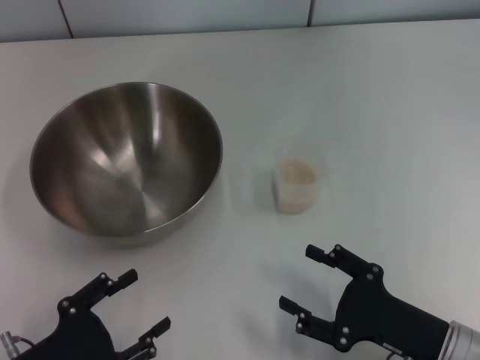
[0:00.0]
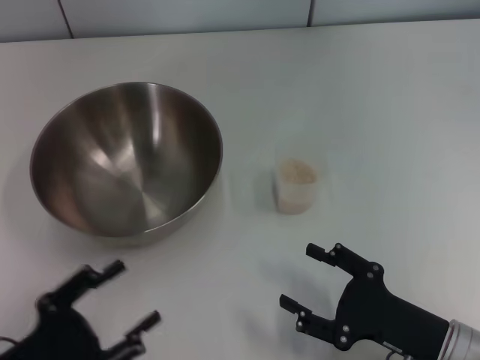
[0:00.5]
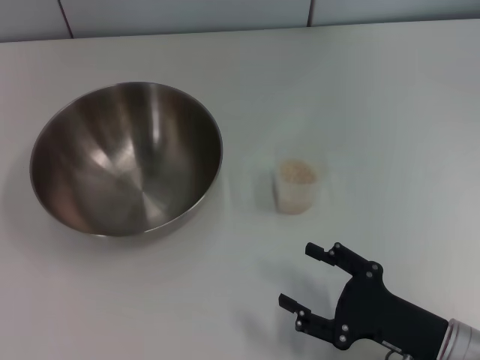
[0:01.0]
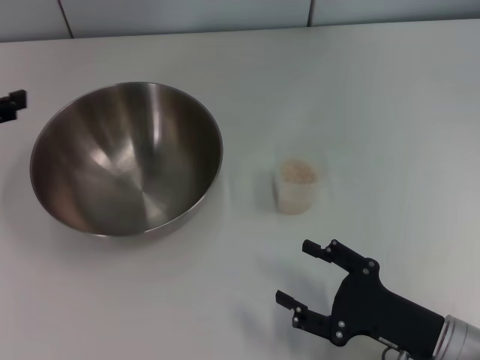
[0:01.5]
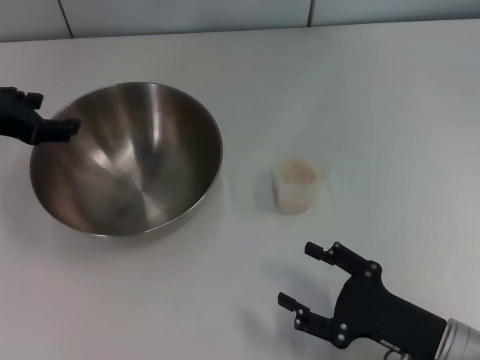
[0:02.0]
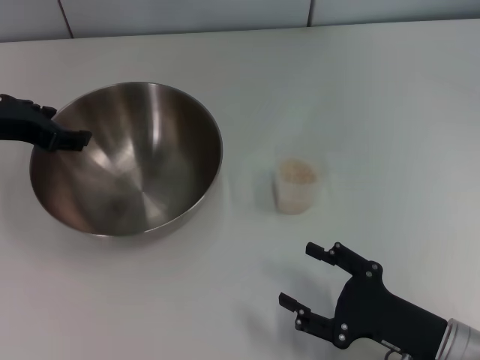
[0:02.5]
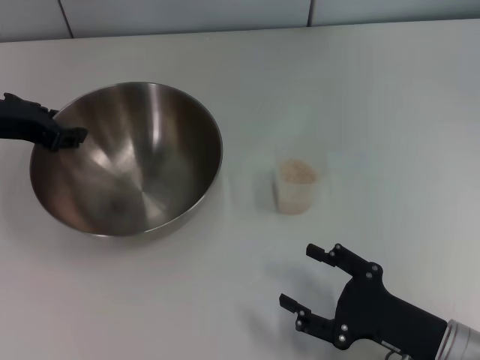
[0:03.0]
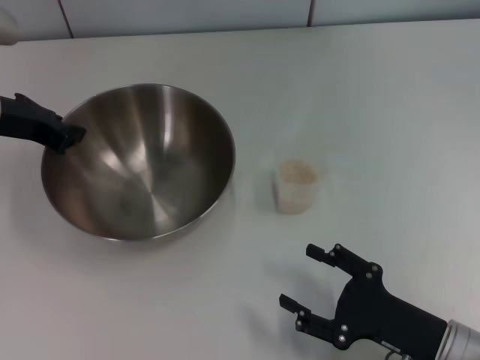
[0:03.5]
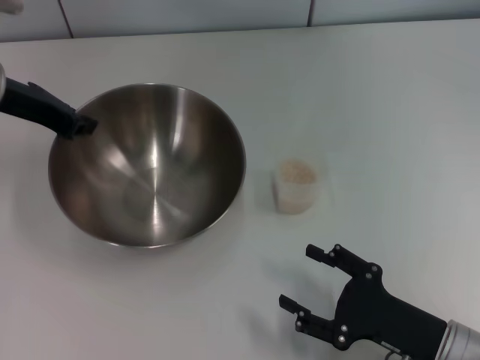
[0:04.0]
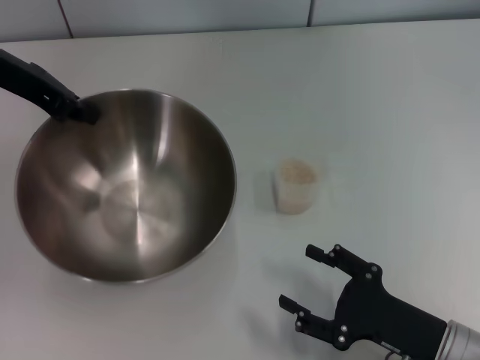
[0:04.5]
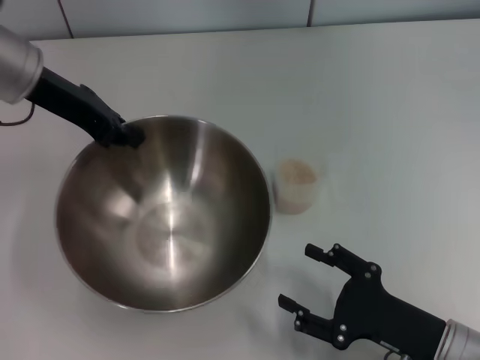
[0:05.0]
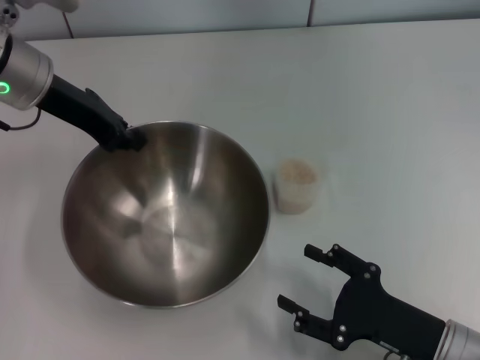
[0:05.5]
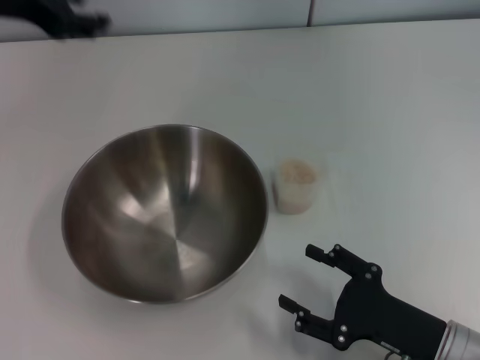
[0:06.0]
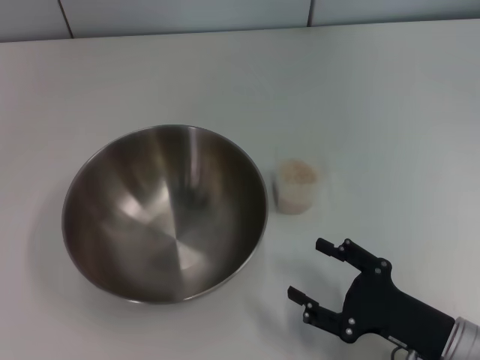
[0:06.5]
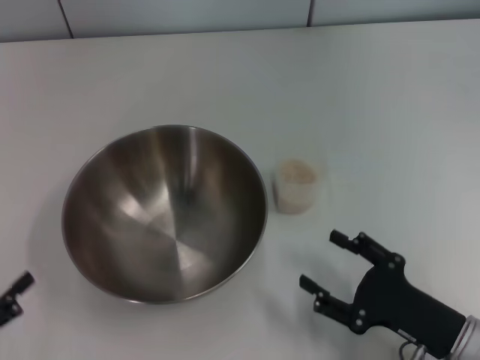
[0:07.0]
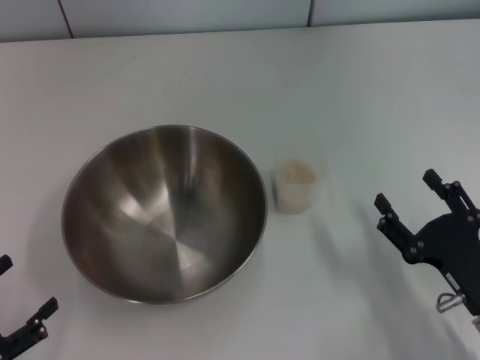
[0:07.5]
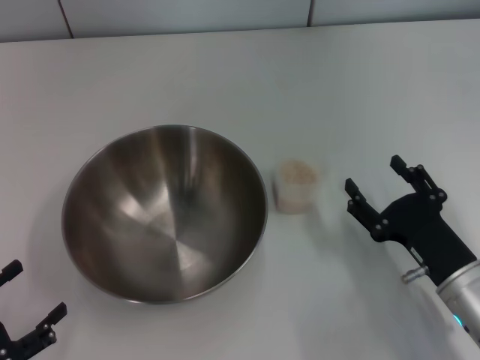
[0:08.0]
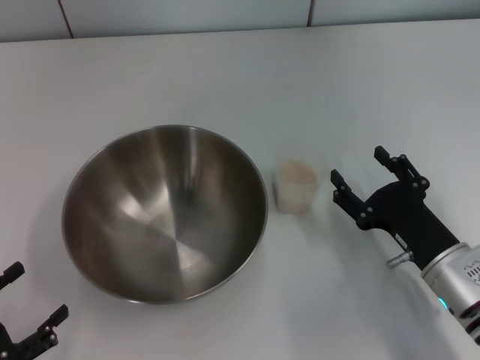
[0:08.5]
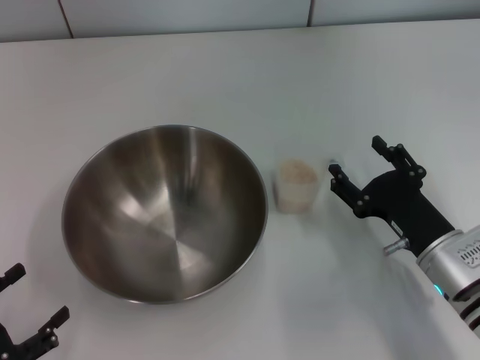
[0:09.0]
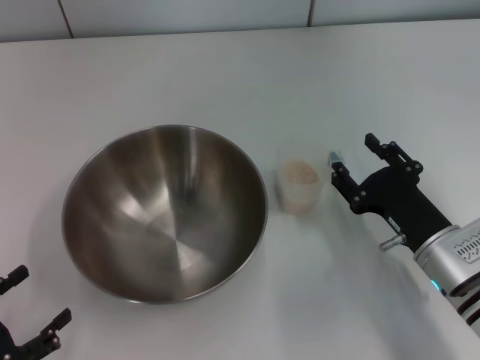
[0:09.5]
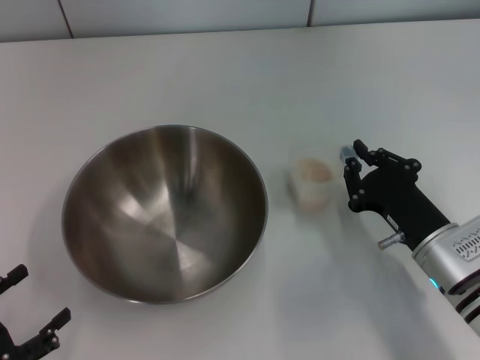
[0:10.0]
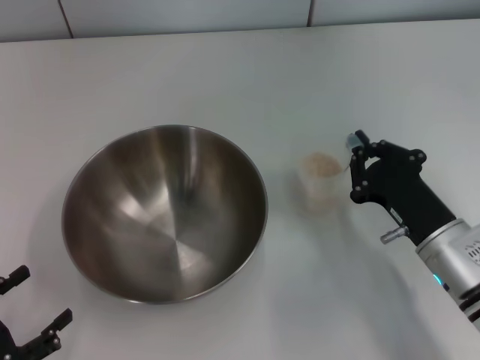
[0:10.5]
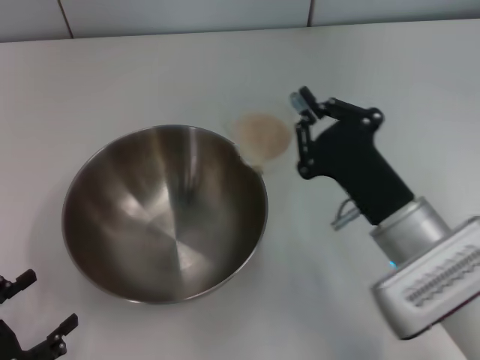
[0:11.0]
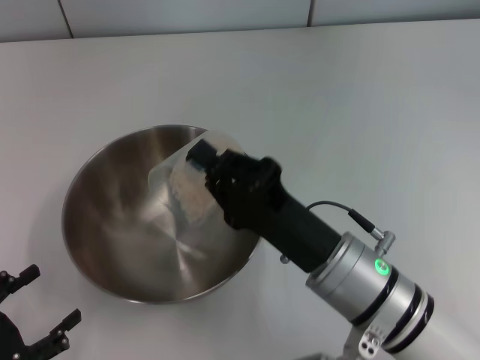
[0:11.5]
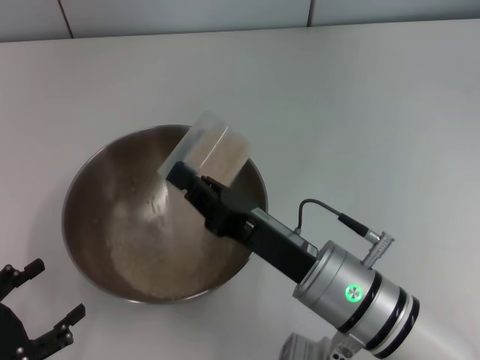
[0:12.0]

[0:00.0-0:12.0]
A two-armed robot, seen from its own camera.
Task of the whole recording: Place the bowl in the middle of the table with one hand and pour the rice from the grain cup into it with the other hand.
Step, 0:00.0 to 0:04.0: Pick up the bowl with the left gripper.
Step, 0:04.5 to 0:05.5: Place the bowl in the center of view with the left gripper.
Step, 0:06.0 to 0:10.5: Pick up the cup with rice in it with the right gripper.
0:00.0 to 0:02.0: The left gripper heads forward and upward, covering some 25 cm.
0:02.0 to 0:04.0: The left gripper is displaced forward by about 5 cm, and closes up.
0:04.0 to 0:06.0: The left gripper is displaced upward by roughly 10 cm.
0:06.0 to 0:08.0: The left gripper travels backward and downward by approximately 40 cm, and opens.
0:08.0 to 0:10.0: The right gripper closes.
0:10.0 to 0:12.0: The right gripper goes roughly 15 cm to the left and upward, and closes up.

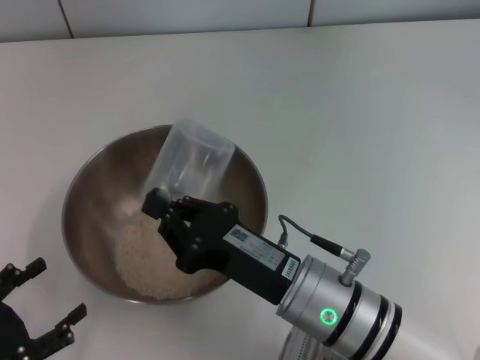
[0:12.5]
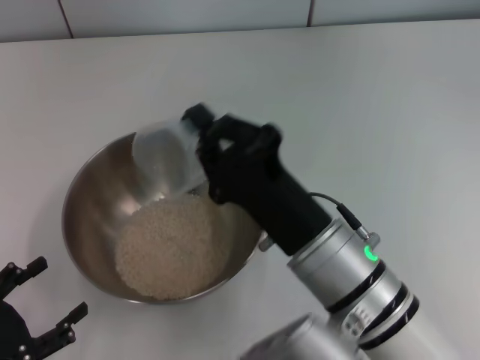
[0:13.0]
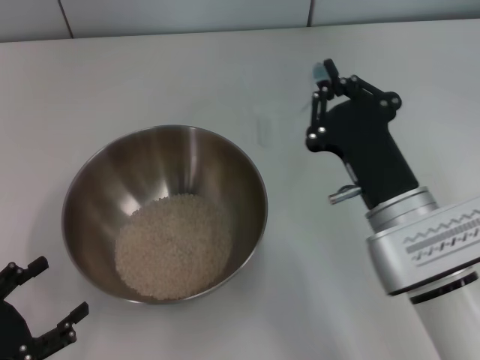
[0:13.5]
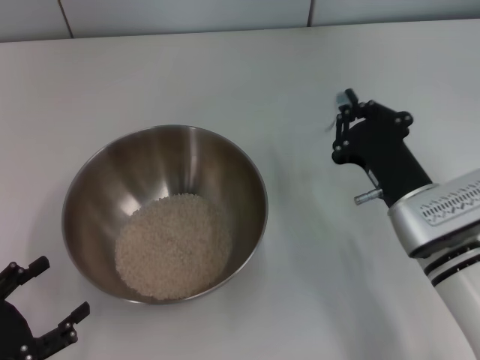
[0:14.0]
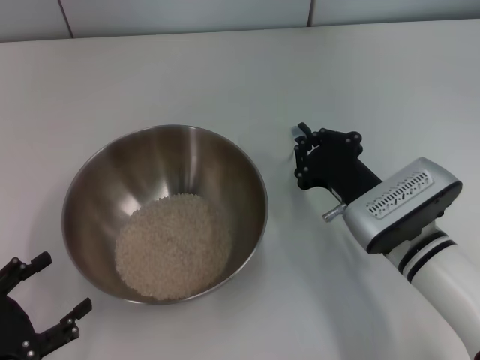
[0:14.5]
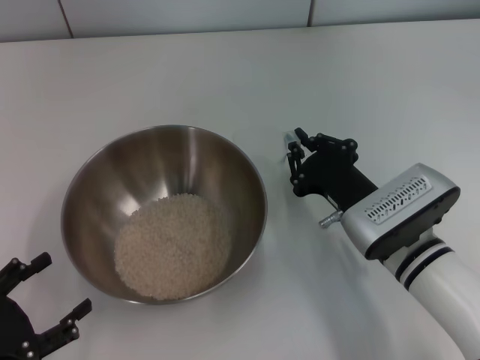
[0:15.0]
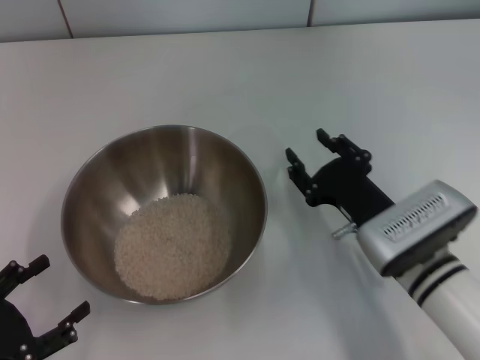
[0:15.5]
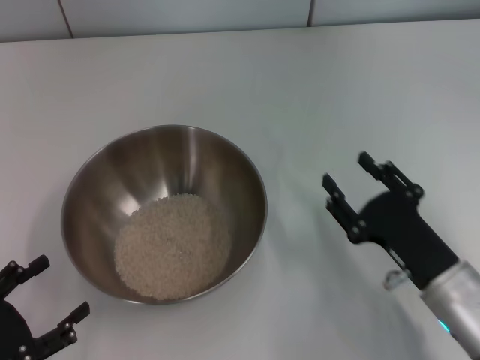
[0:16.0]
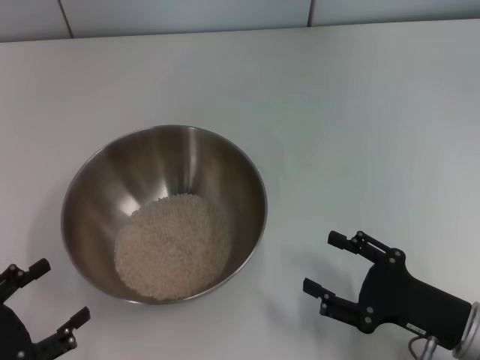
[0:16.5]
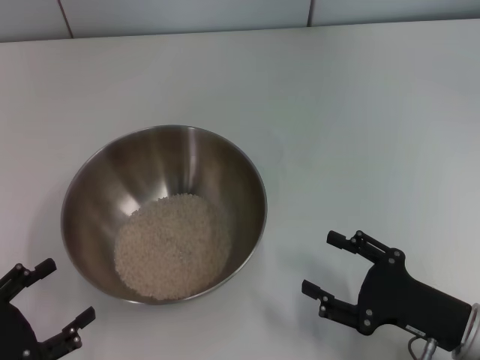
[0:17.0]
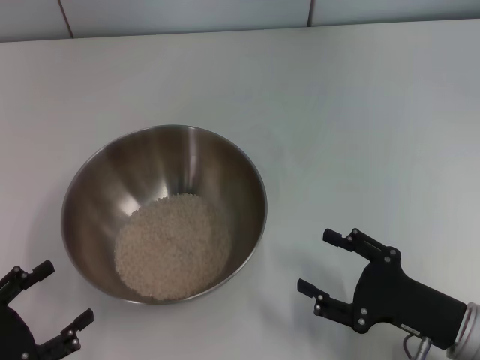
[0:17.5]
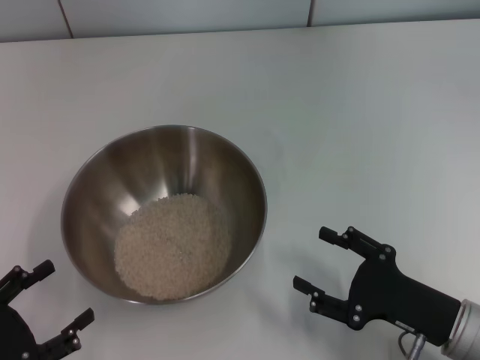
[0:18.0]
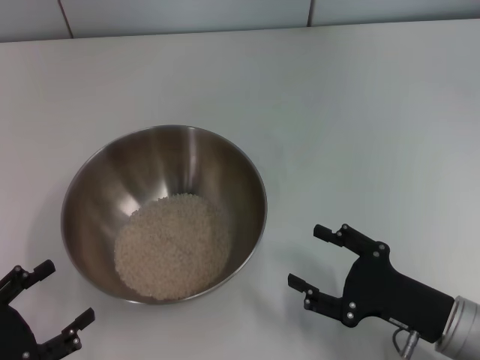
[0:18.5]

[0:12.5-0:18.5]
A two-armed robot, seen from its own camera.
Task of the whole recording: Place the bowl in the middle of the table with one hand and pour the rice from the grain cup into it with the other hand.
Step, 0:14.0 to 0:15.5: Place the cup on the table with the right gripper.
0:12.5 to 0:14.5: The right gripper heads to the right and forward, covering roughly 10 cm.
0:14.5 to 0:16.5: The right gripper shifts some 15 cm backward and to the right, and opens.
0:16.5 to 0:18.5: The grippers make only small movements.

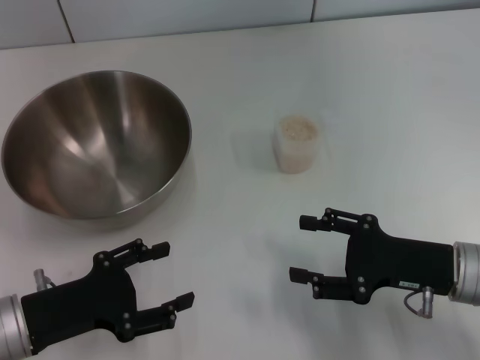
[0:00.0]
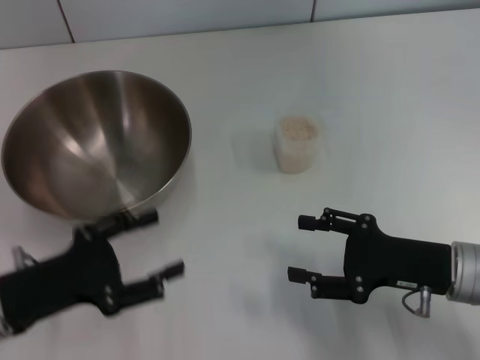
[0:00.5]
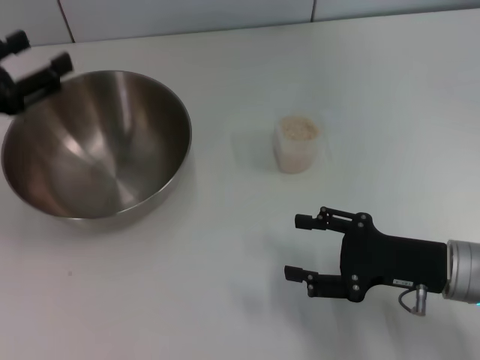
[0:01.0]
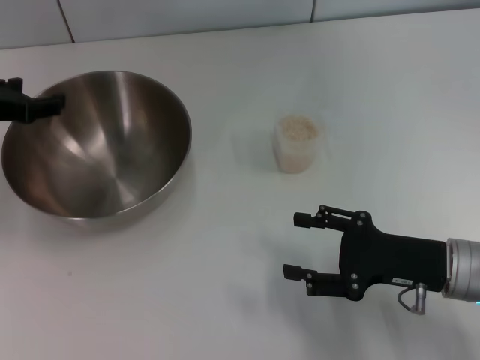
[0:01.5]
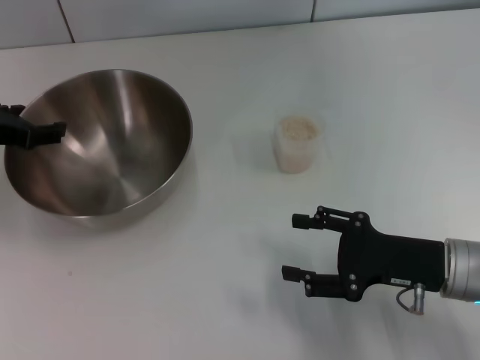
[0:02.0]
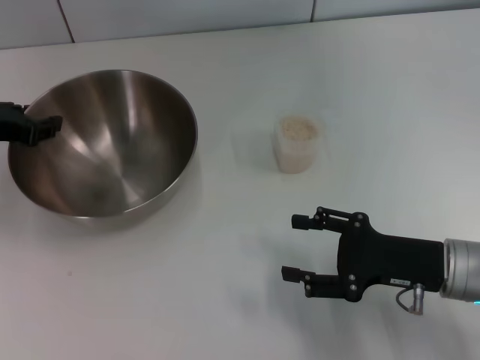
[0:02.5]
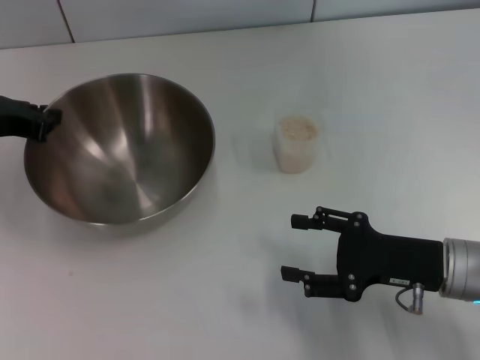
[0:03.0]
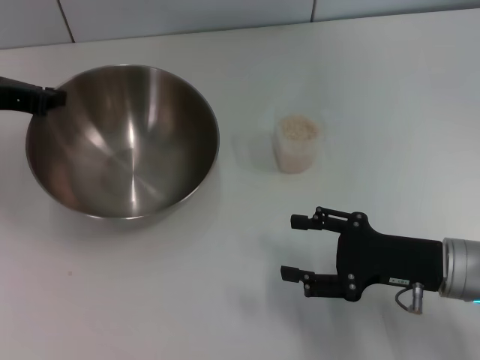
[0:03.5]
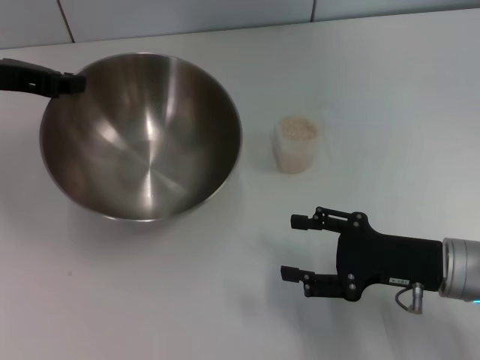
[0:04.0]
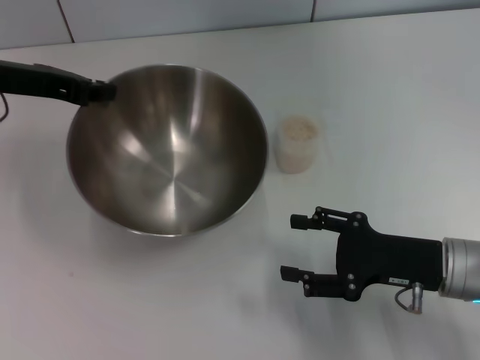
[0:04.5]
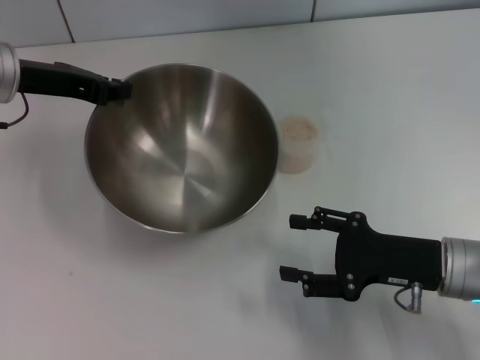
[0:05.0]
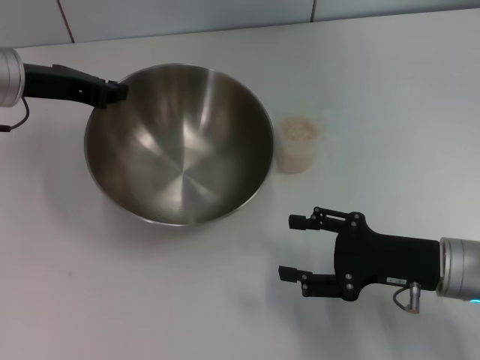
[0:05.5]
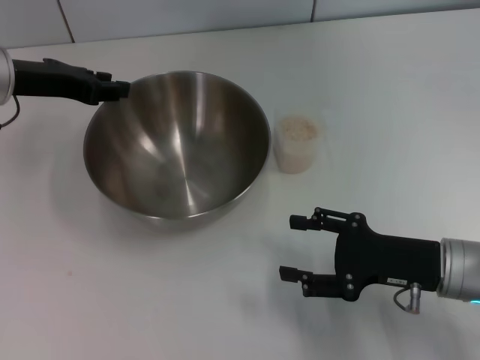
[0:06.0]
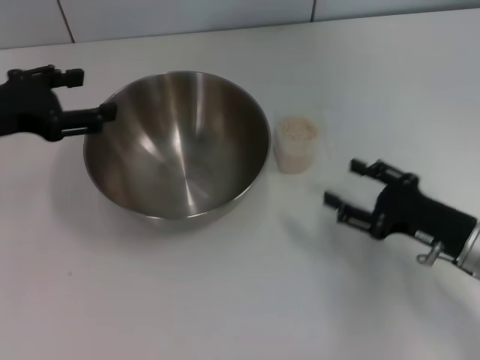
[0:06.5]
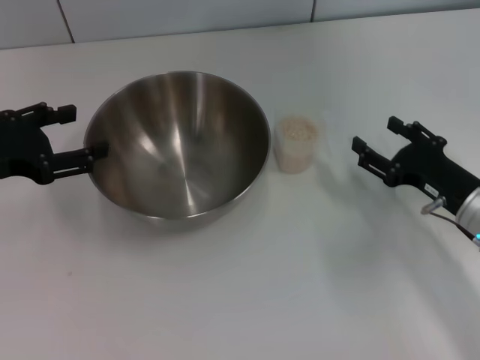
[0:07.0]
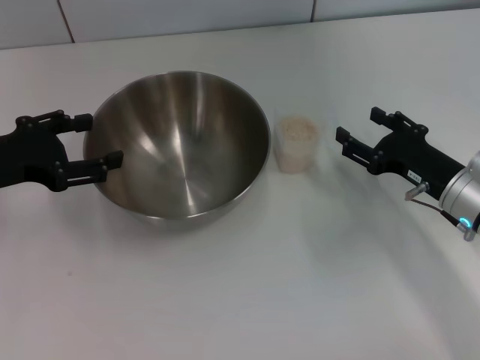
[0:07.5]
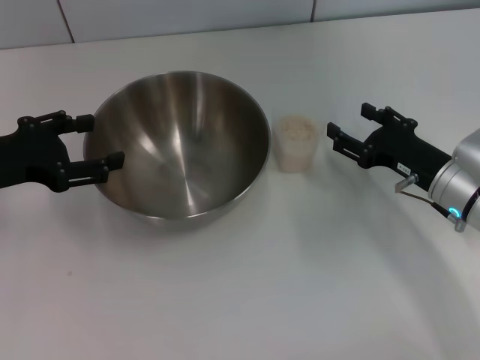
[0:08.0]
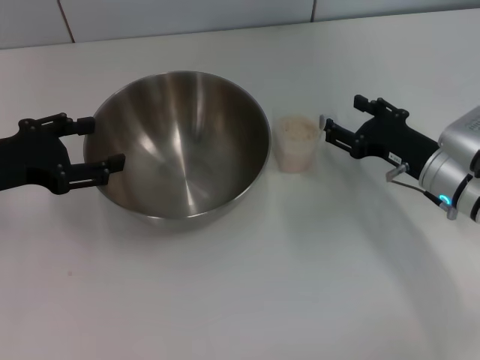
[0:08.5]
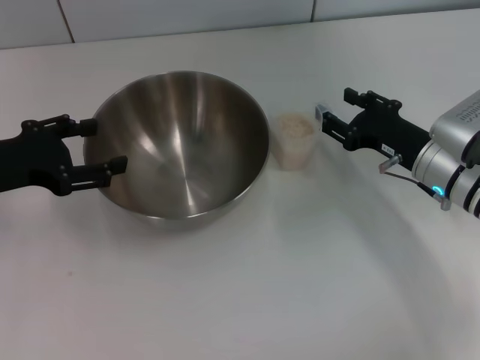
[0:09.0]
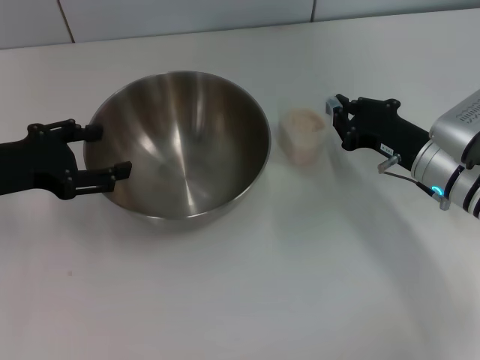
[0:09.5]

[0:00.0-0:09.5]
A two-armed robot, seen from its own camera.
Task of the whole recording: Place the bowl in the middle of the table with one hand and pour the rice from the grain cup into it with the other hand.
Step, 0:00.0 to 0:03.0: Pick up the bowl with the left gripper.
Step, 0:03.5 to 0:06.0: Place the bowl in the center of view with the left gripper.
0:00.0 to 0:02.0: The left gripper goes roughly 20 cm forward and upward.
0:02.0 to 0:04.0: The left gripper changes place by about 5 cm, and closes its fingers.
0:04.0 to 0:05.5: There are only small adjustments of the grippers.
0:05.5 to 0:07.5: The left gripper is displaced backward and to the left by roughly 10 cm, and opens. Meanwhile the right gripper is displaced forward by approximately 5 cm.
0:07.5 to 0:09.5: The right gripper closes its fingers.
